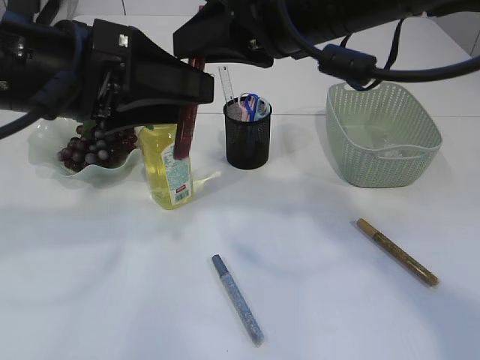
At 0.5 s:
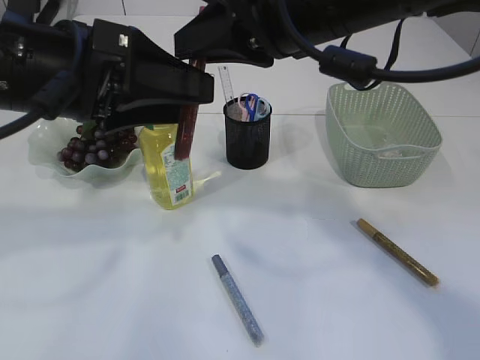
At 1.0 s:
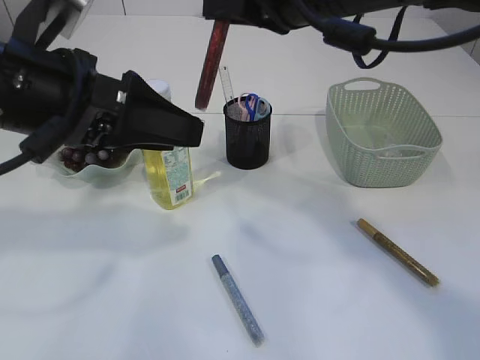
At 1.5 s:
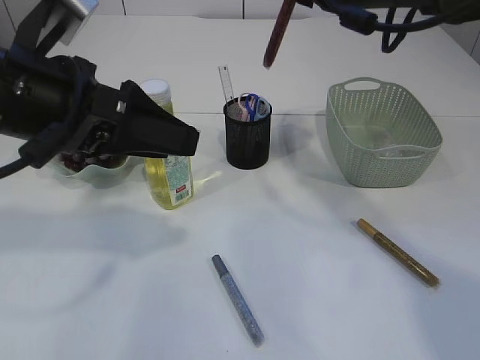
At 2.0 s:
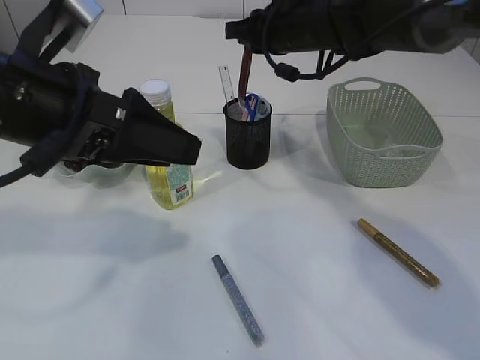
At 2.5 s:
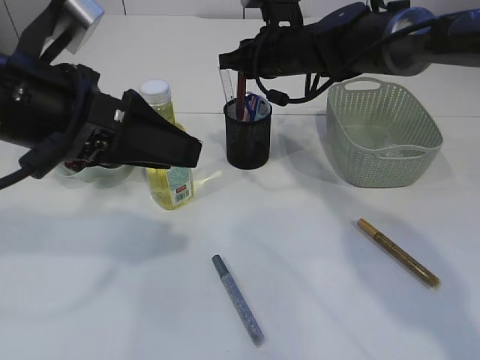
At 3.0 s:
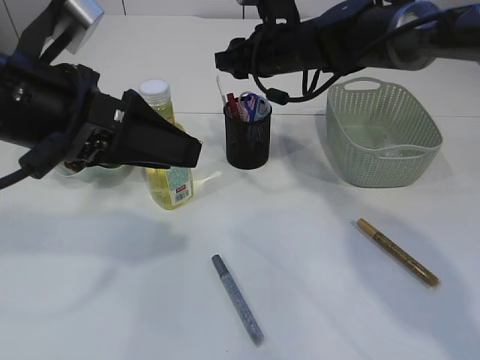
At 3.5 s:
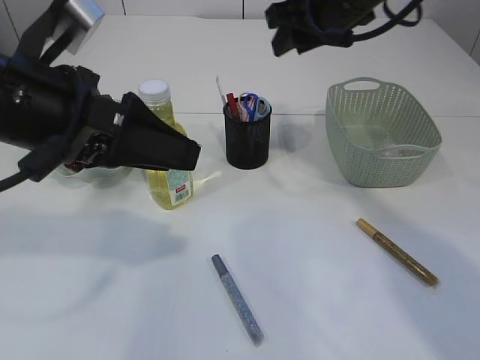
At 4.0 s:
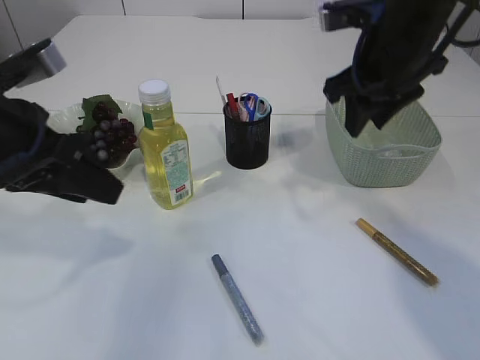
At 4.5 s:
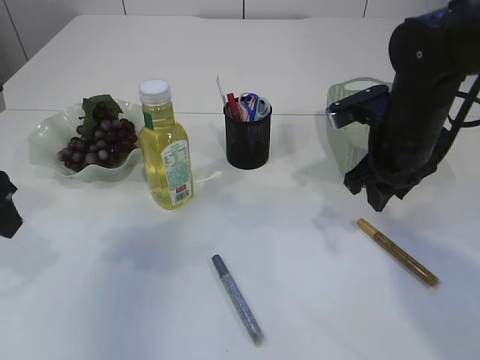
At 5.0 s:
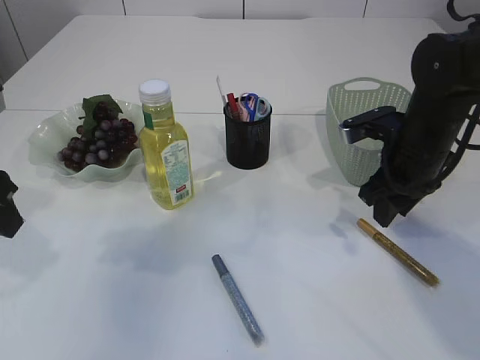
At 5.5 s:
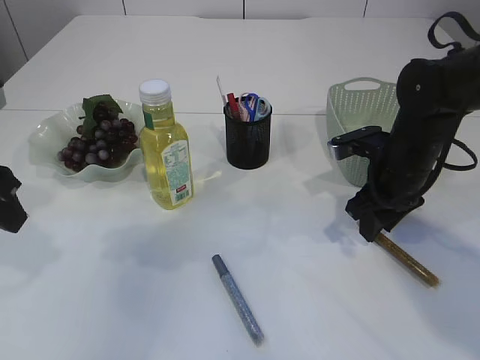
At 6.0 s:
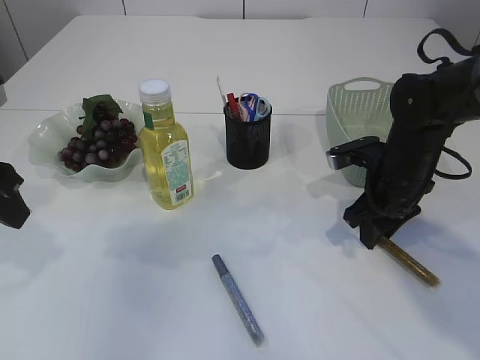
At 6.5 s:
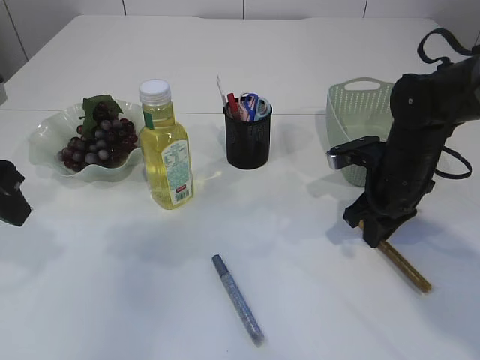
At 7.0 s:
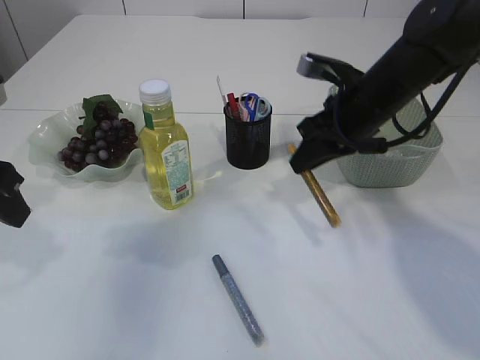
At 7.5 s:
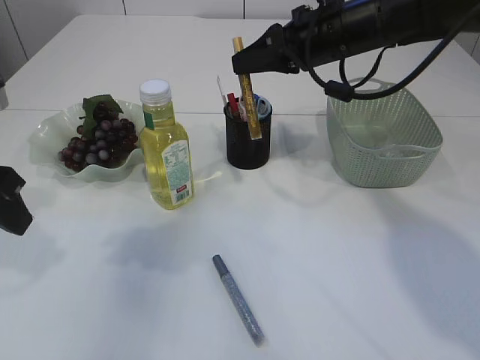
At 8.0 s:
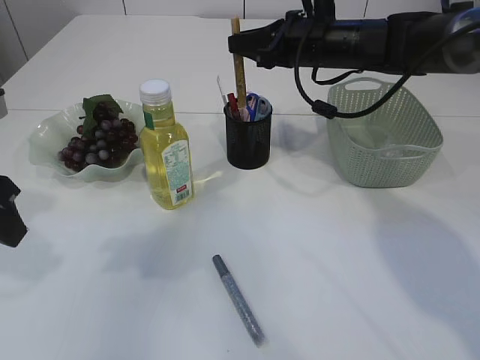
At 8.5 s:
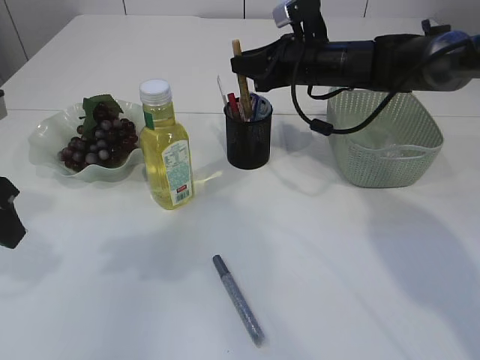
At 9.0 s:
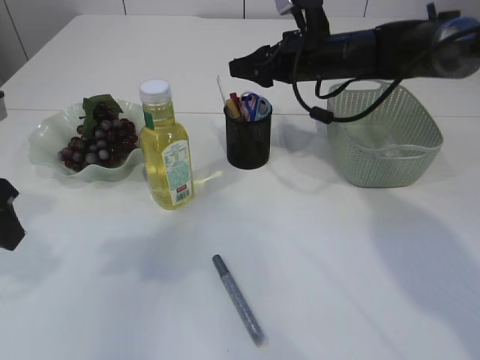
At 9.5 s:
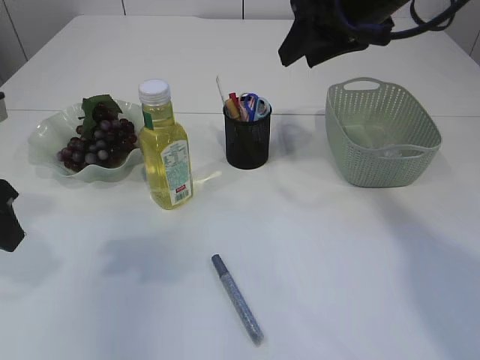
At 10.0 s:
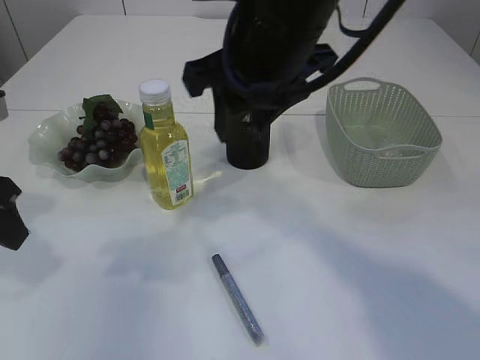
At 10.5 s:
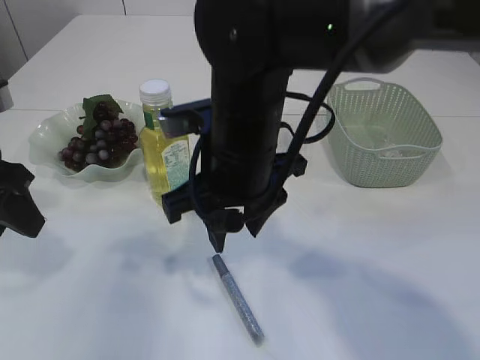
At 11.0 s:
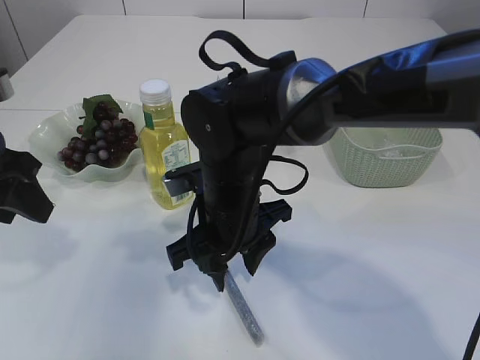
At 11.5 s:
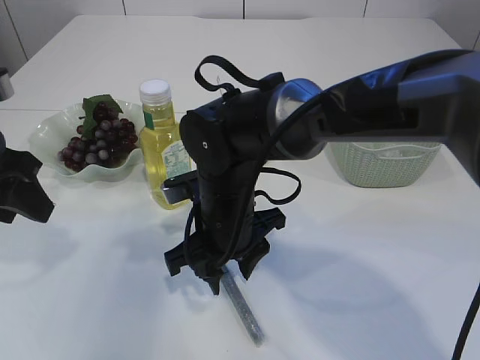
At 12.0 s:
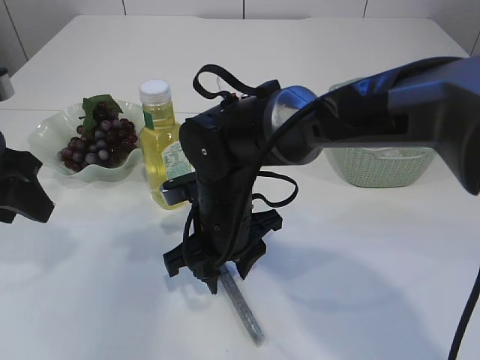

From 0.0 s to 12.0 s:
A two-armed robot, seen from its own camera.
Step, from 1.5 s to 3.0 s: place the red glue into the pen holder.
Step, from 3.5 s to 6.5 s: pick up the yellow glue.
Step, from 7.0 s to 8.5 s: place the yellow glue into the pen holder.
From 0.0 s to 2.0 s: The right gripper goes about 20 cm forward and downward.
From 2.0 s to 4.0 s: The left gripper shifts by some 5 cm, while the right gripper moves backward and to the right, some 10 cm, and opens its fingers.
From 4.0 s to 6.0 s: The left gripper goes about 5 cm to the left. The right gripper goes approximately 15 cm downward.
From 6.0 s to 8.0 s: The right gripper heads upward, forward and to the left, covering some 20 cm.
From 8.0 s to 10.0 s: The right gripper is displaced backward, upward and to the left by roughly 20 cm, and opens up.
From 10.0 s to 12.0 s: The right gripper shifts about 20 cm downward.

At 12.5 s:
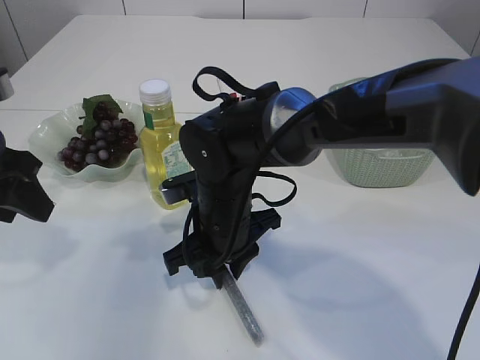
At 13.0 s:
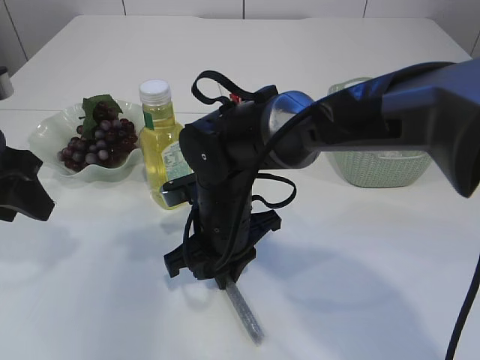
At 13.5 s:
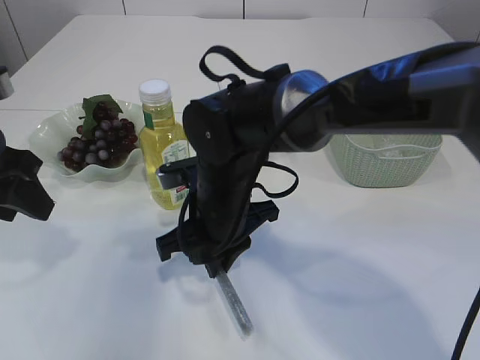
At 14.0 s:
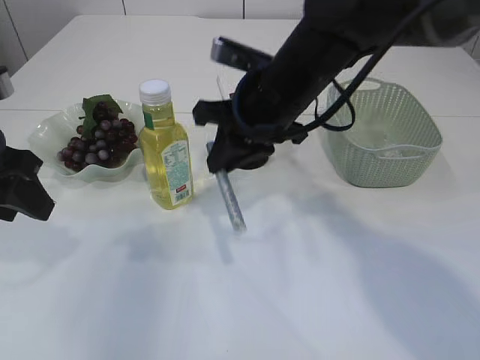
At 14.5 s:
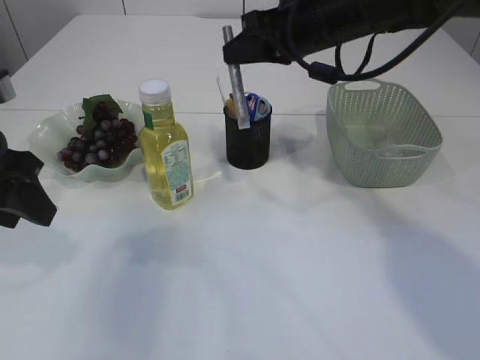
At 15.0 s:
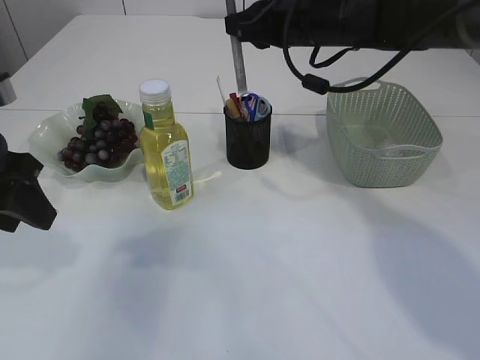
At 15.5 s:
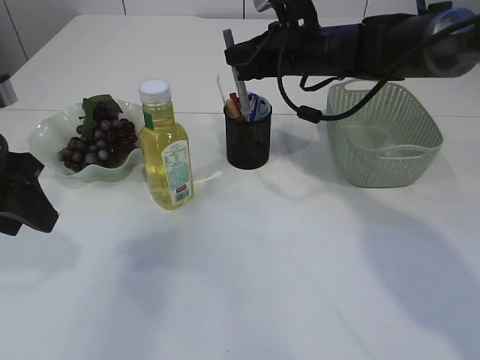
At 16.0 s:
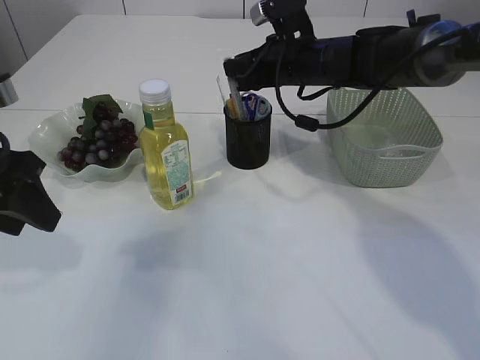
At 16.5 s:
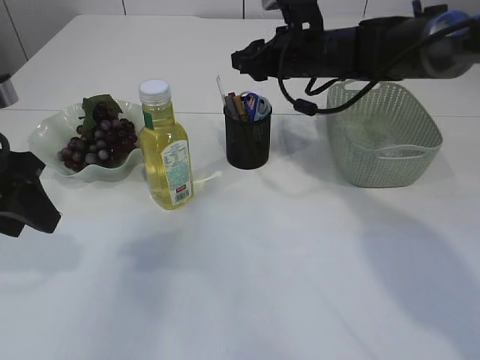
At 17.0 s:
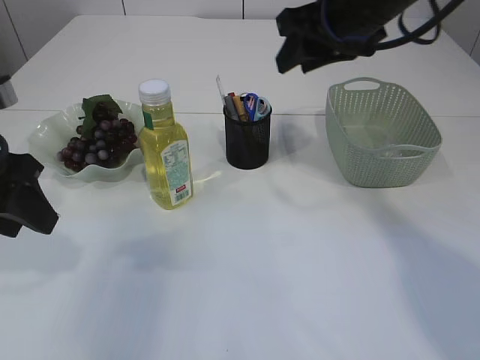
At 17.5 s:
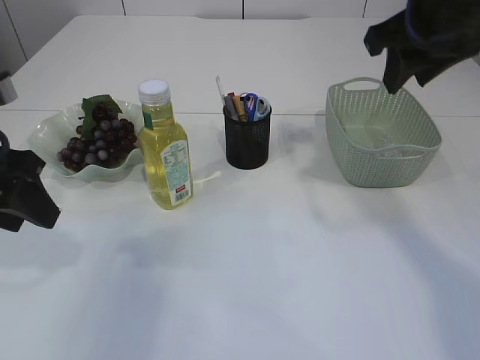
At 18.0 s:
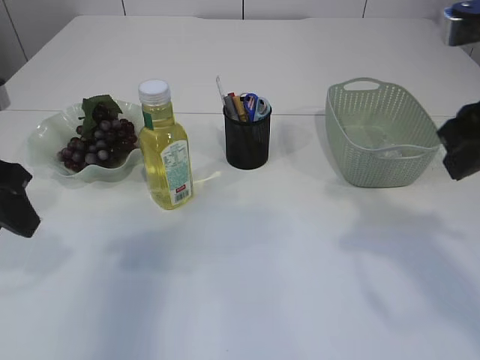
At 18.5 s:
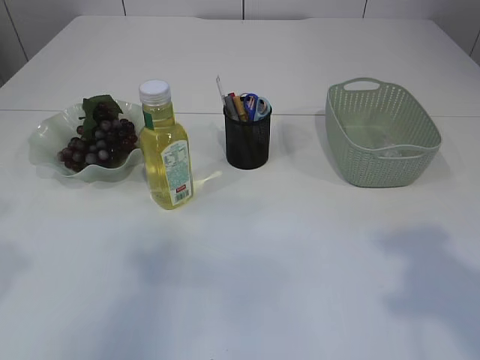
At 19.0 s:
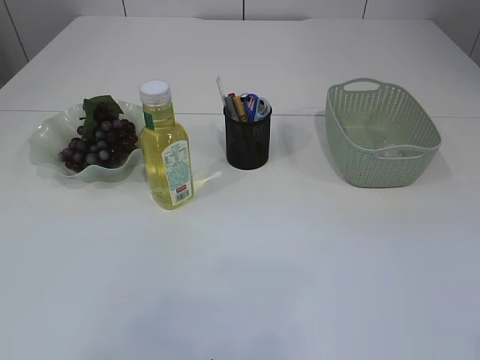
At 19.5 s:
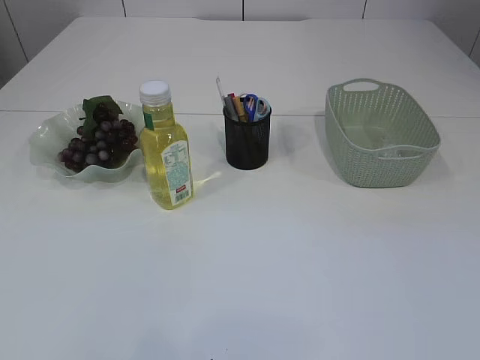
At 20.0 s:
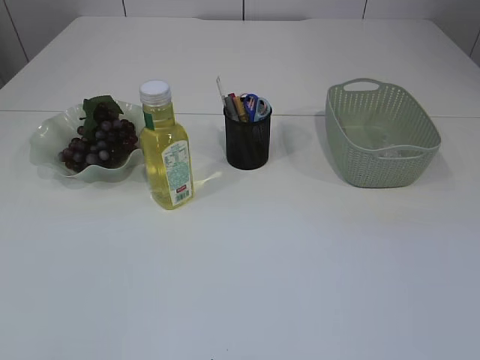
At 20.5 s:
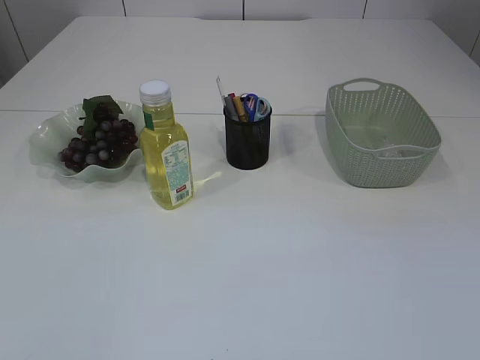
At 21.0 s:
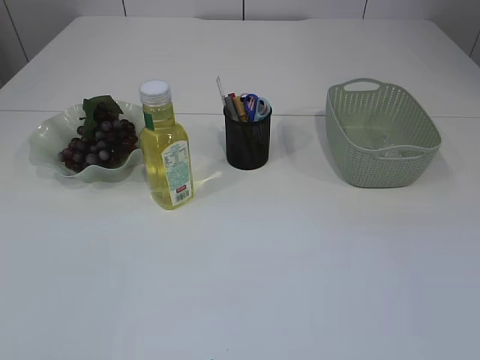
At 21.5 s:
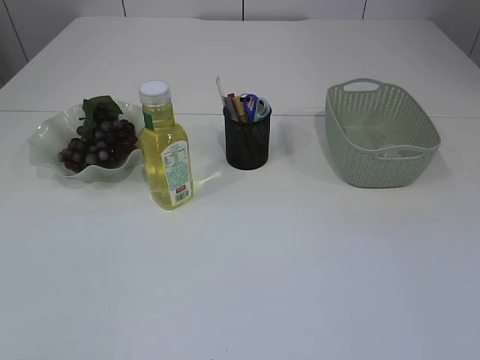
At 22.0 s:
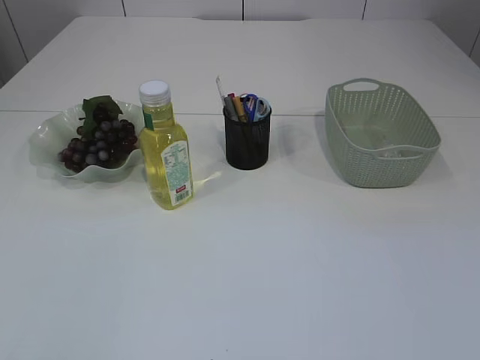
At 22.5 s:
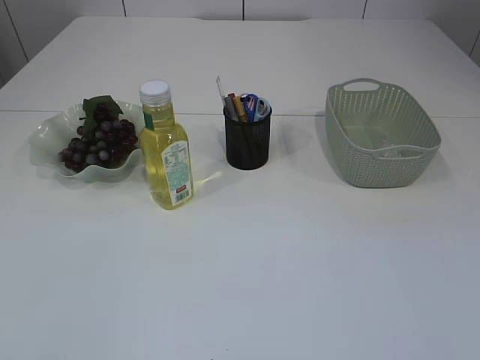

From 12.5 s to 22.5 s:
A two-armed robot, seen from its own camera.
Step, from 14.0 s to 16.5 s: place the silver glue into the pen holder.
From 12.5 s to 14.5 s: The right gripper is displaced upward, to the right and forward by about 25 cm.
From 14.5 s to 16.5 s: The right gripper shifts approximately 10 cm forward and downward, and opens its fingers.
From 16.5 s to 18.5 s: The left gripper is displaced upward and backward by roughly 10 cm; the right gripper is displaced backward by some 35 cm.
From 18.5 s to 20.5 s: The left gripper travels backward by about 20 cm.

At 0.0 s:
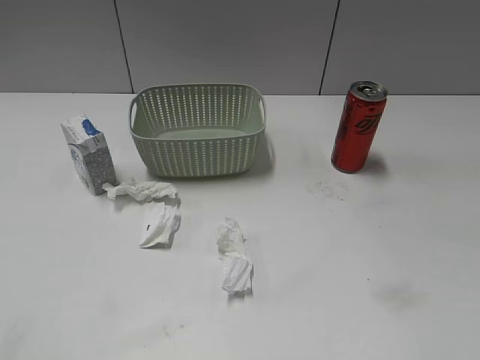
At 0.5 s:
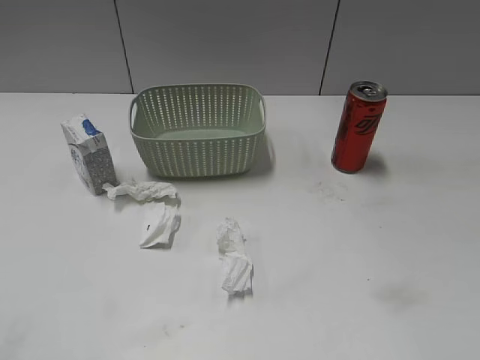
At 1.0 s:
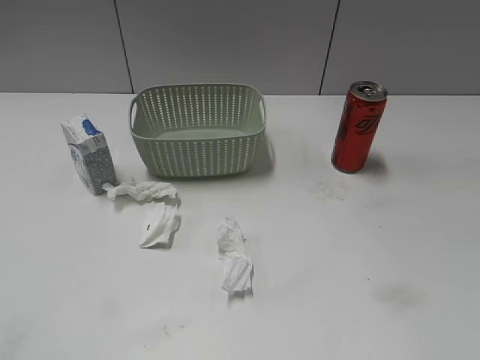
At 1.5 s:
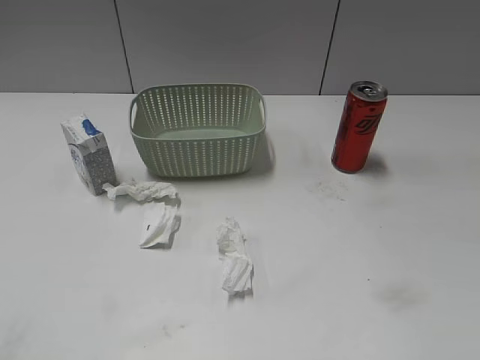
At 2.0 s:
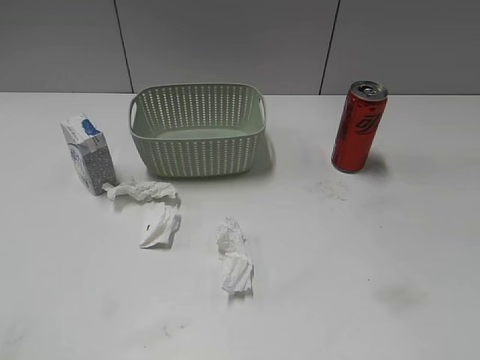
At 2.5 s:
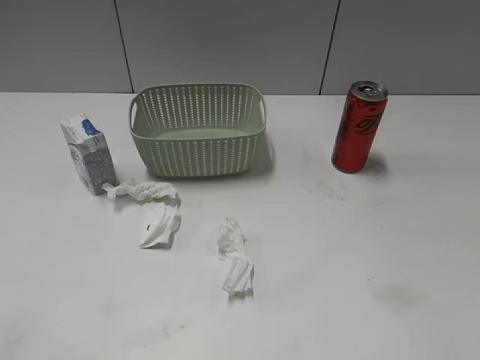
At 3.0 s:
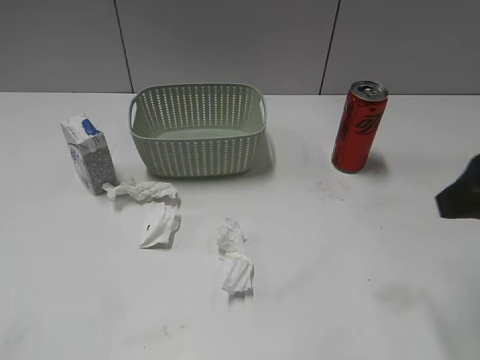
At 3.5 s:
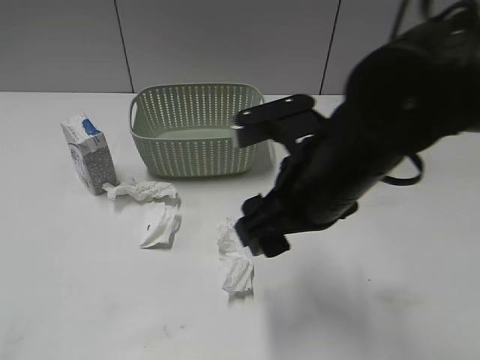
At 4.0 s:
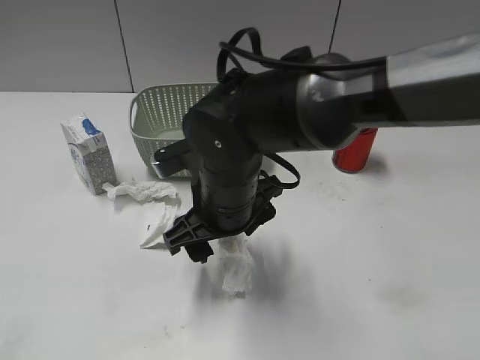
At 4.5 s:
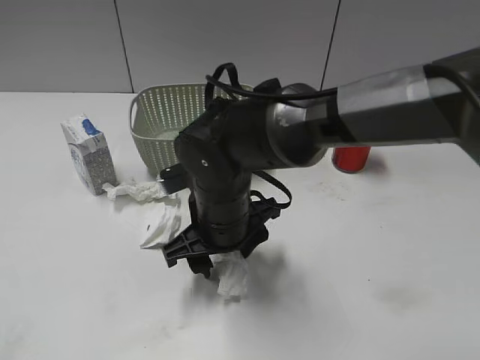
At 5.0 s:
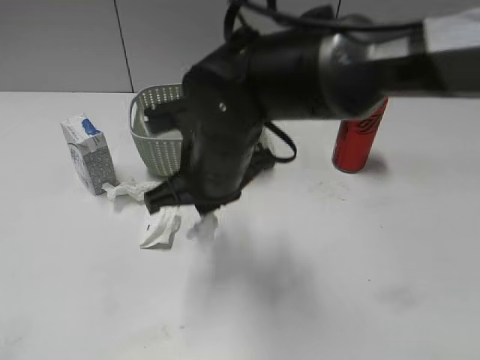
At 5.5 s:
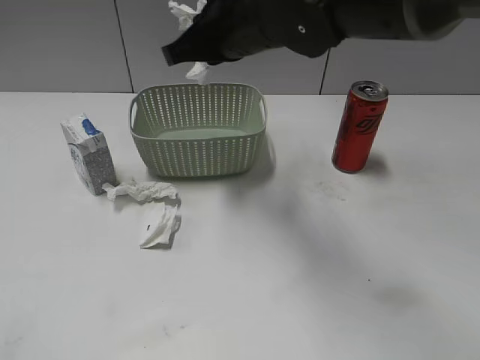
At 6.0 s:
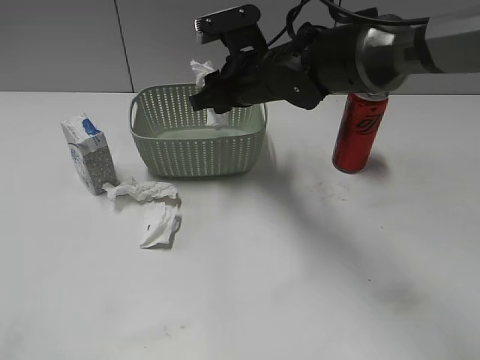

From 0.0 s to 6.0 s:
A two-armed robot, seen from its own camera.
Step, from 3.0 s to 4.5 s: Grasp the waste paper with right gripper.
From 2.0 s to 4.0 s: The right gripper is displaced to the left and forward by roughly 40 cm; the left gripper opens up.
From 4.0 s to 6.0 s: The right gripper moves forward, approximately 15 cm, travels upward and back again, some 10 cm each way, and closes, then opens again.
